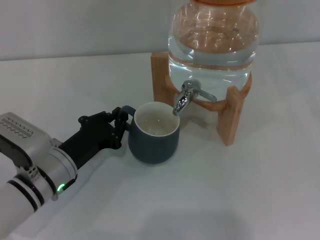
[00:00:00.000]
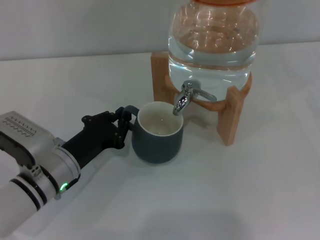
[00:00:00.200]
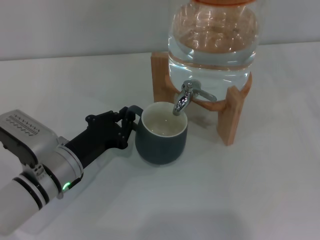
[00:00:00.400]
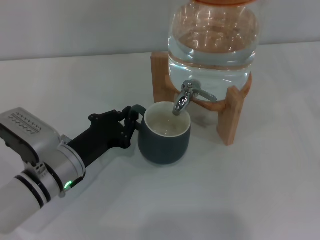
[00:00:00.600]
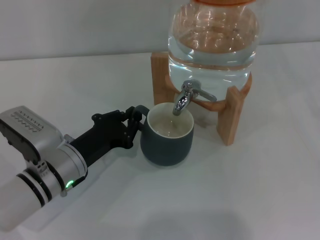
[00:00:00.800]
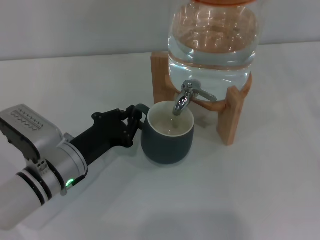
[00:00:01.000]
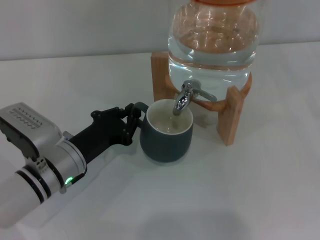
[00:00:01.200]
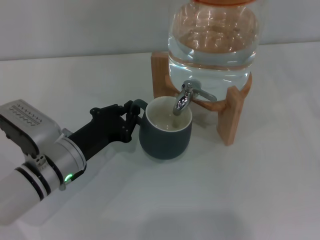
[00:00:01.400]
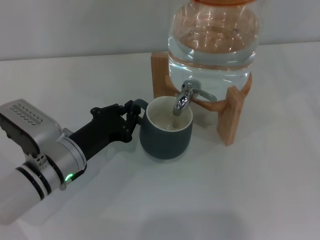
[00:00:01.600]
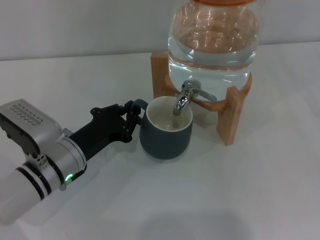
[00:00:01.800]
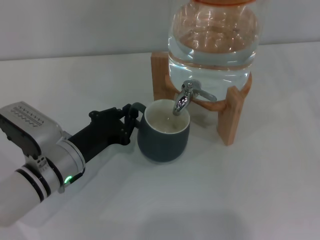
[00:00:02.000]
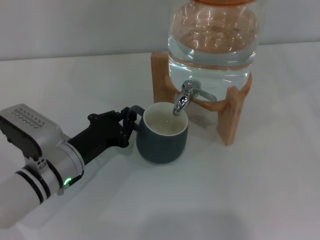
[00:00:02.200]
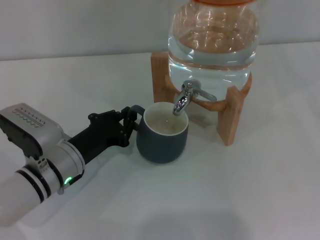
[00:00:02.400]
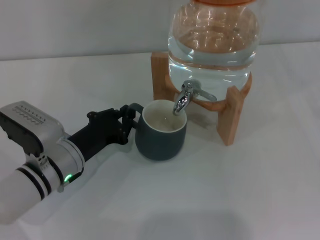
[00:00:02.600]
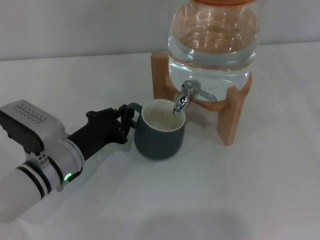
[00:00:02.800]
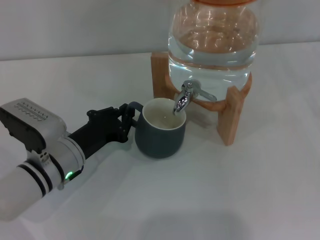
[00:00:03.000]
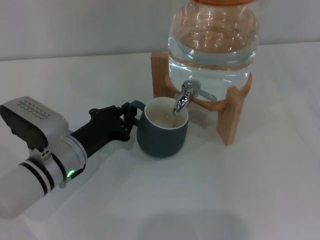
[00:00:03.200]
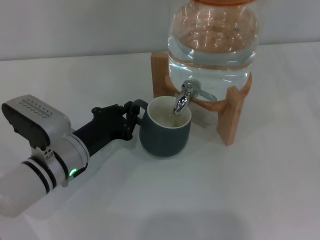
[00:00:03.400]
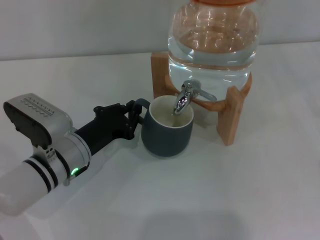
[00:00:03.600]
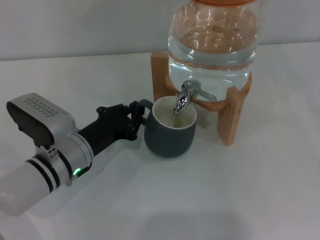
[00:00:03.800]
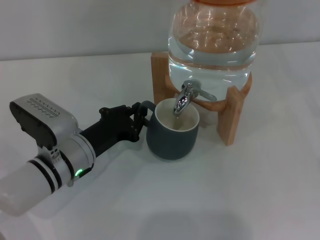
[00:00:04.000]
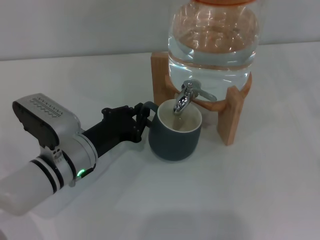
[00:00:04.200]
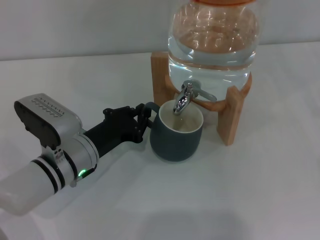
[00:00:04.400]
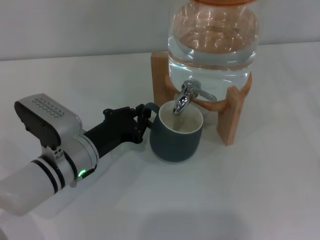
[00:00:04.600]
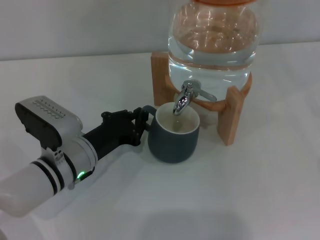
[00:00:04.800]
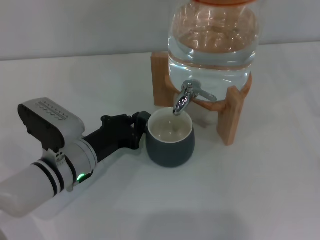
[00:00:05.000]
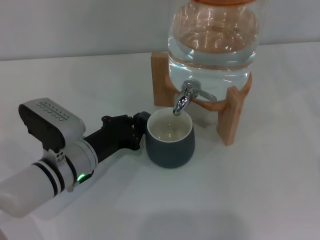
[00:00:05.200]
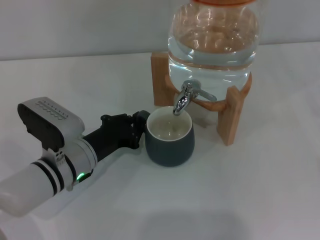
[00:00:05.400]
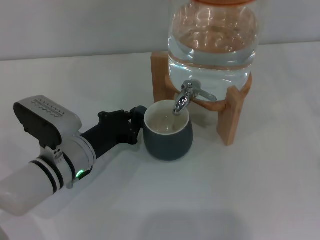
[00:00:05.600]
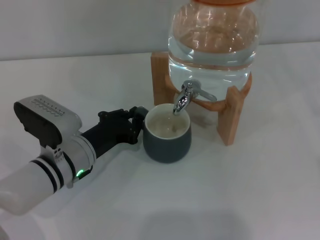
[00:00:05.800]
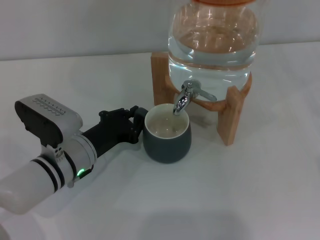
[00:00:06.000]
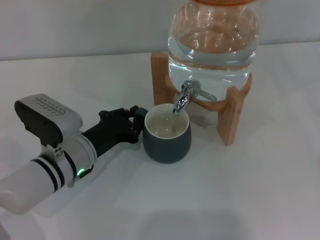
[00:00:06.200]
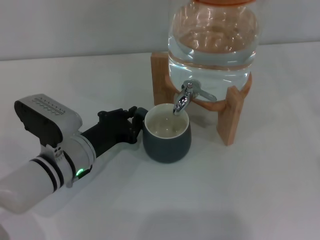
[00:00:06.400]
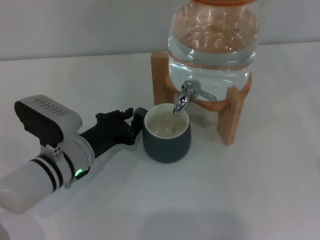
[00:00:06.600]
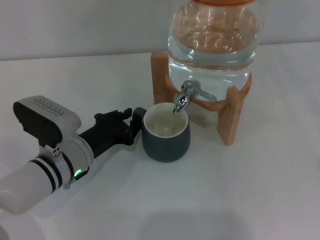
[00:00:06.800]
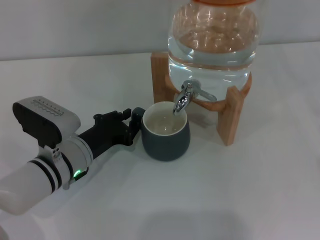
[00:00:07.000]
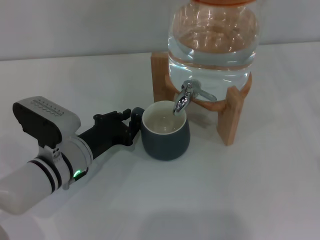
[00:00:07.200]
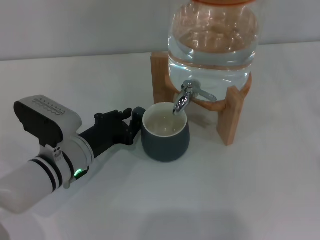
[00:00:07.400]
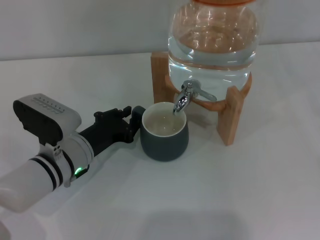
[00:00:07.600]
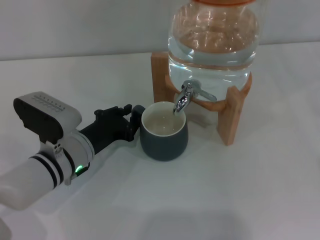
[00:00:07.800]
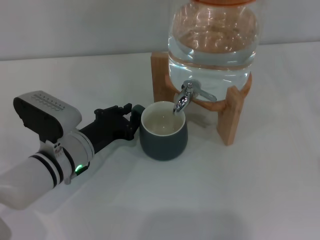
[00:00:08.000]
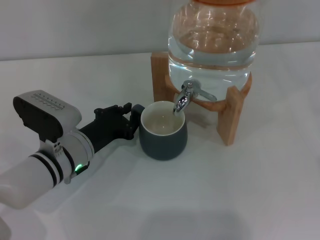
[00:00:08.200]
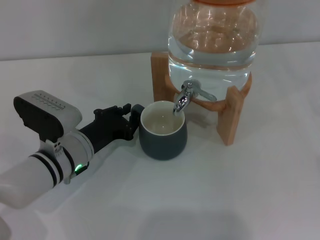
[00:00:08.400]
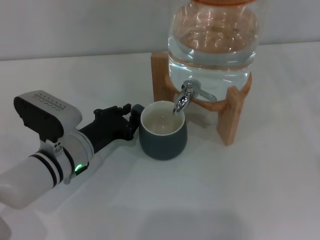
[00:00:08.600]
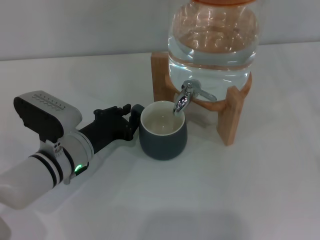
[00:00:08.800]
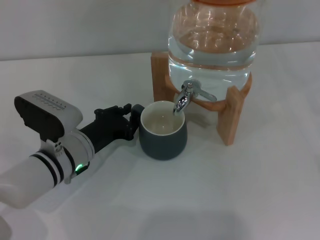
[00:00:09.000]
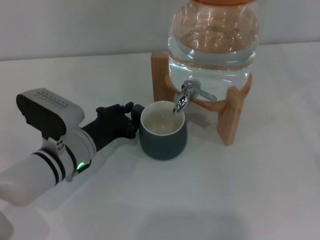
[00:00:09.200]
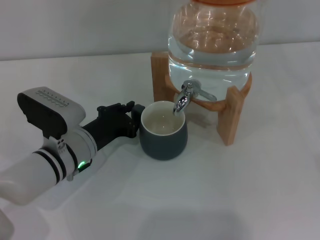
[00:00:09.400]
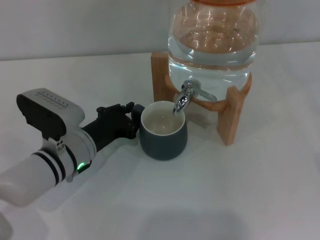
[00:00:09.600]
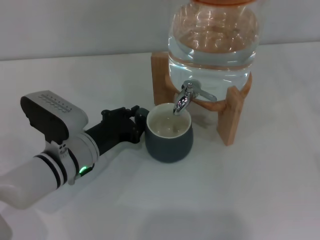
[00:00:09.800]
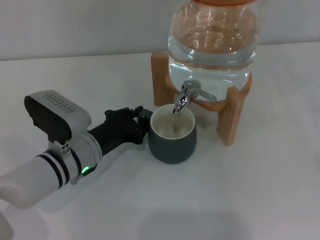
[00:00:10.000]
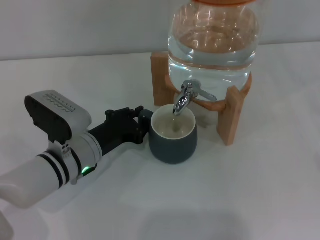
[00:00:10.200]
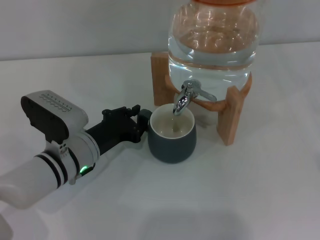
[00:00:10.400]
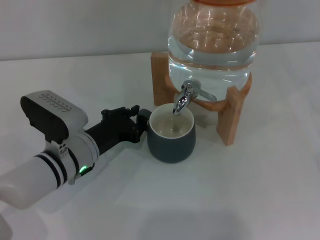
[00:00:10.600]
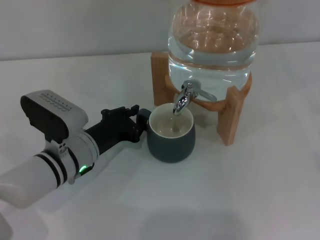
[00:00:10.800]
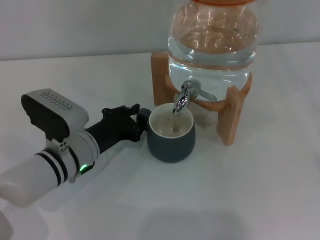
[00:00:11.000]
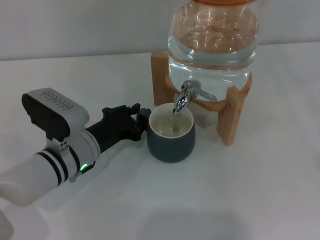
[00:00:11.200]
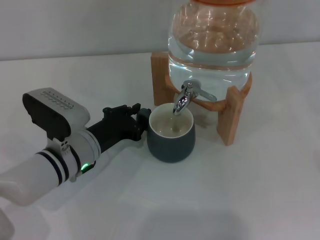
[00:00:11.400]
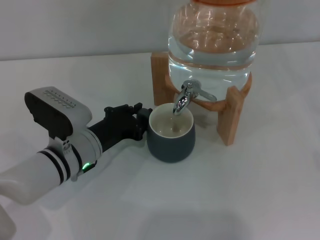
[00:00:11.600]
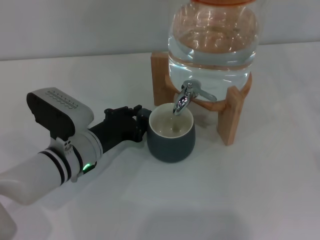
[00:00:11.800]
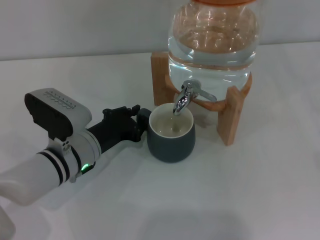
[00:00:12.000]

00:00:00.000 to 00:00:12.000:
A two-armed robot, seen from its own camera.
Task of the whole recording: the left gripper pick up the black cup and place it horizontally under the faucet, the right gripper turn on the faucet to fill the cup, and then turn off the faucet.
00:00:00.000 to 00:00:04.400: There are only small adjustments of the grippers.
00:00:04.400 to 00:00:06.000: Neither gripper changes place.
00:00:06.000 to 00:00:12.000: The two grippers keep their place.

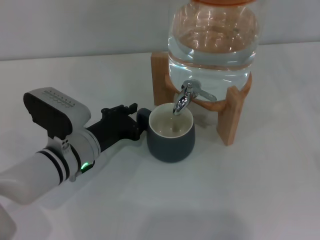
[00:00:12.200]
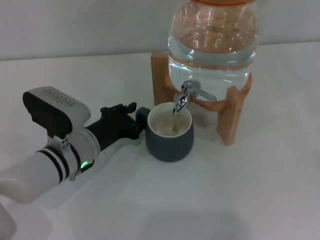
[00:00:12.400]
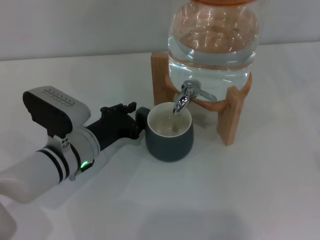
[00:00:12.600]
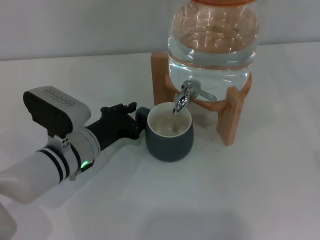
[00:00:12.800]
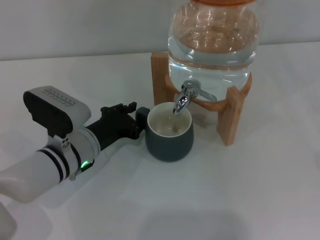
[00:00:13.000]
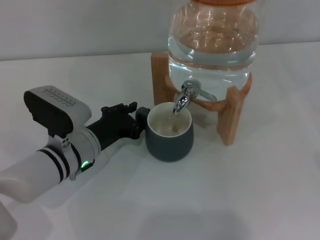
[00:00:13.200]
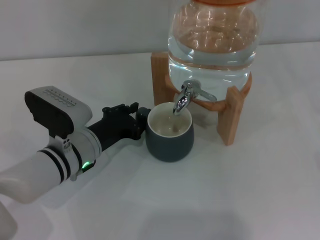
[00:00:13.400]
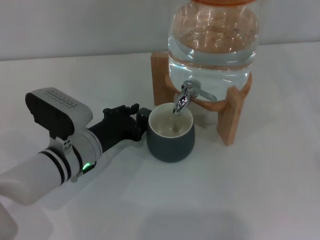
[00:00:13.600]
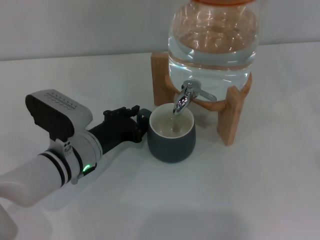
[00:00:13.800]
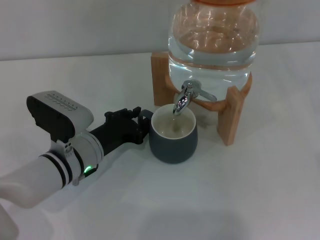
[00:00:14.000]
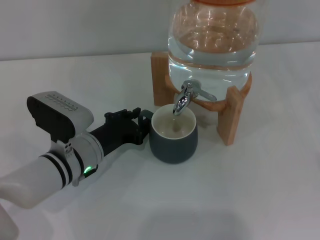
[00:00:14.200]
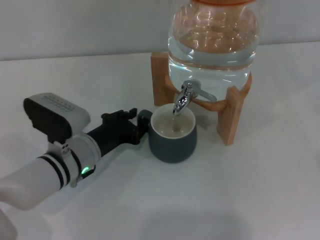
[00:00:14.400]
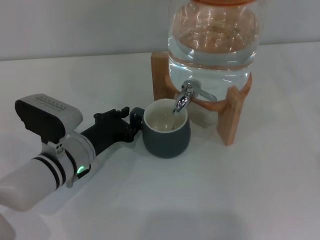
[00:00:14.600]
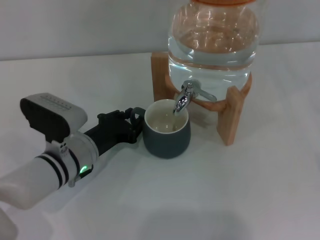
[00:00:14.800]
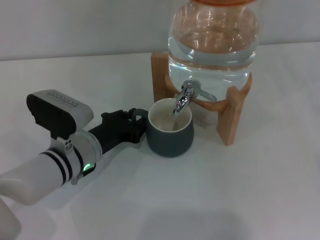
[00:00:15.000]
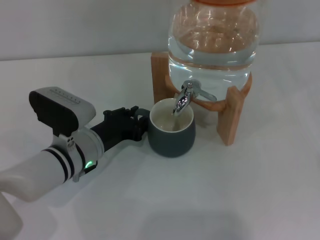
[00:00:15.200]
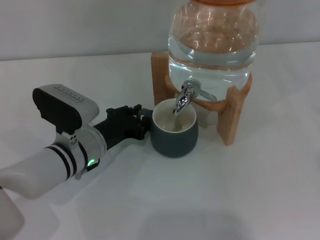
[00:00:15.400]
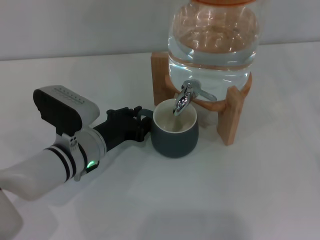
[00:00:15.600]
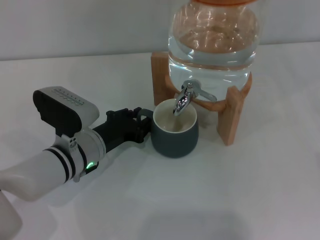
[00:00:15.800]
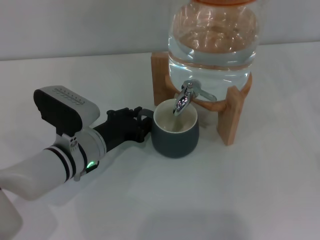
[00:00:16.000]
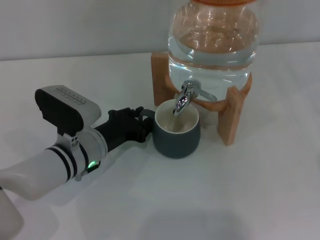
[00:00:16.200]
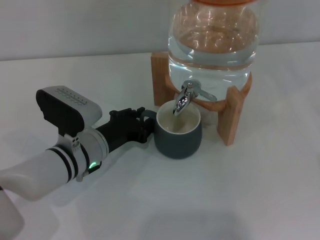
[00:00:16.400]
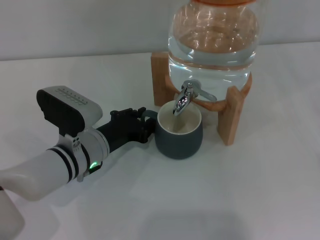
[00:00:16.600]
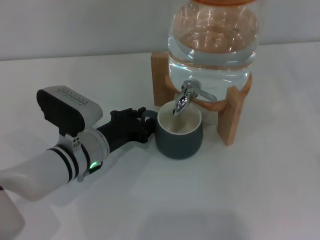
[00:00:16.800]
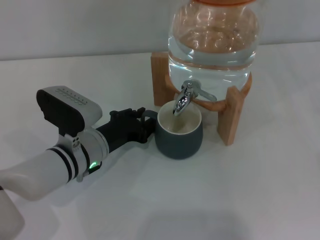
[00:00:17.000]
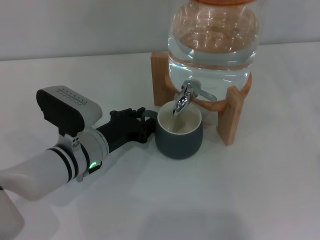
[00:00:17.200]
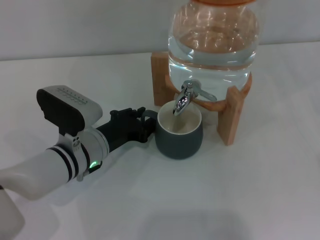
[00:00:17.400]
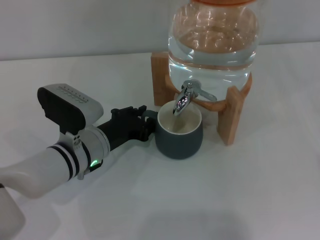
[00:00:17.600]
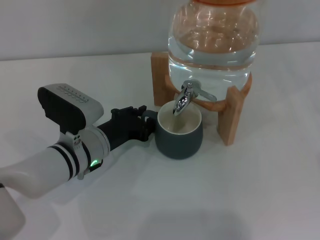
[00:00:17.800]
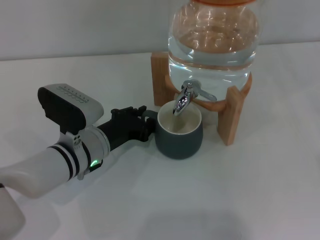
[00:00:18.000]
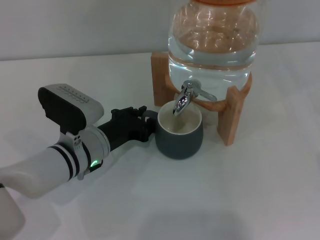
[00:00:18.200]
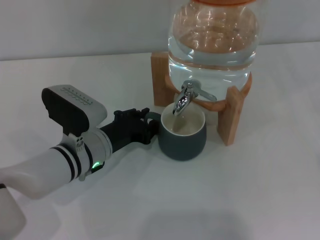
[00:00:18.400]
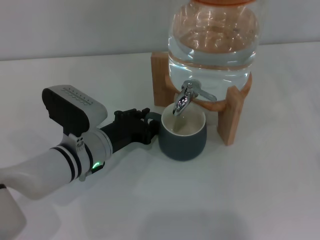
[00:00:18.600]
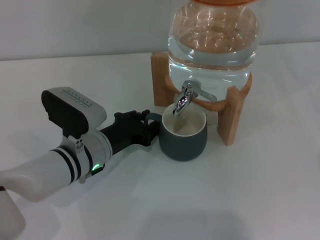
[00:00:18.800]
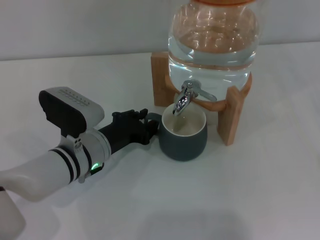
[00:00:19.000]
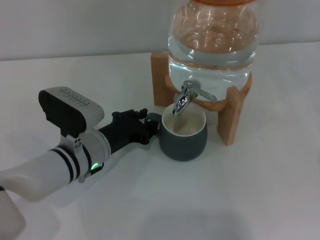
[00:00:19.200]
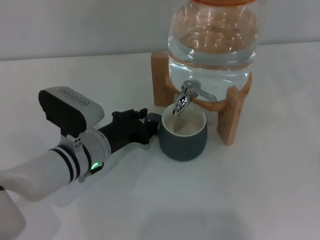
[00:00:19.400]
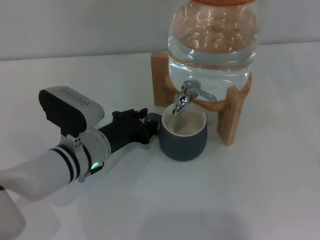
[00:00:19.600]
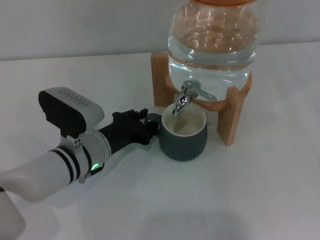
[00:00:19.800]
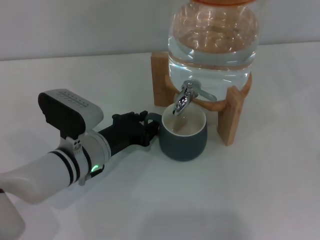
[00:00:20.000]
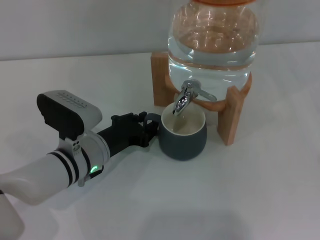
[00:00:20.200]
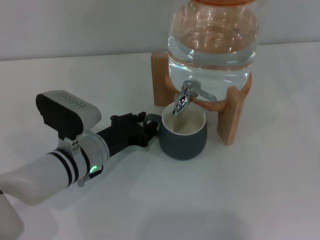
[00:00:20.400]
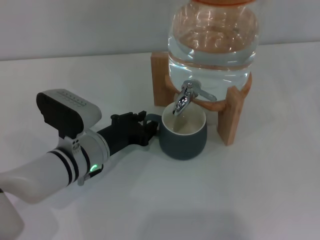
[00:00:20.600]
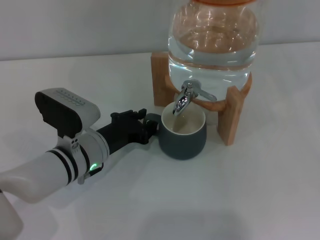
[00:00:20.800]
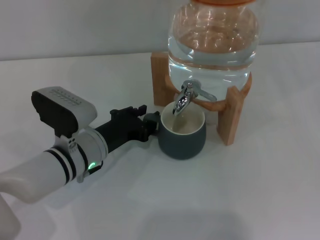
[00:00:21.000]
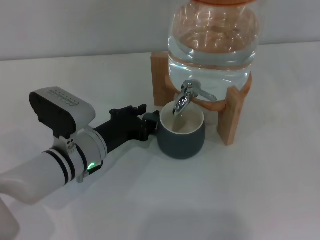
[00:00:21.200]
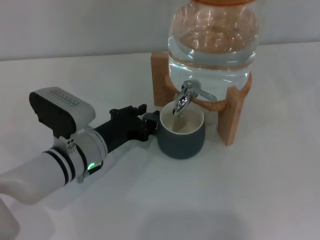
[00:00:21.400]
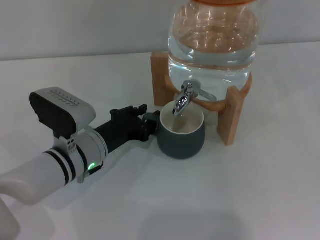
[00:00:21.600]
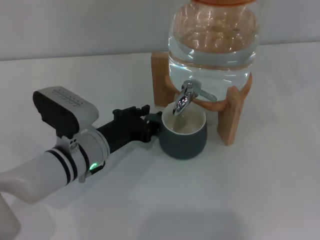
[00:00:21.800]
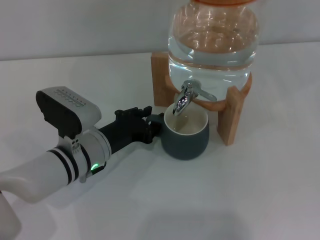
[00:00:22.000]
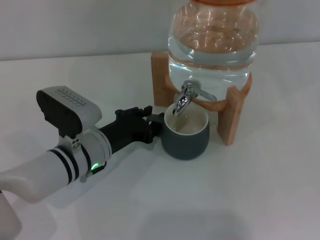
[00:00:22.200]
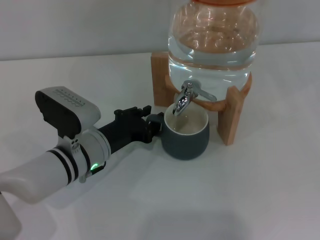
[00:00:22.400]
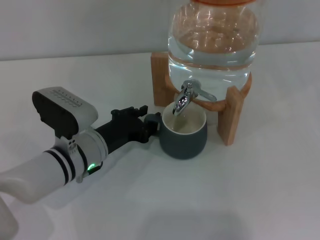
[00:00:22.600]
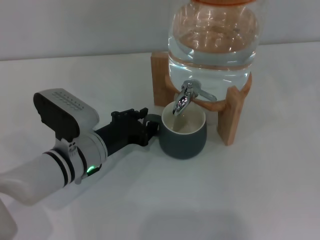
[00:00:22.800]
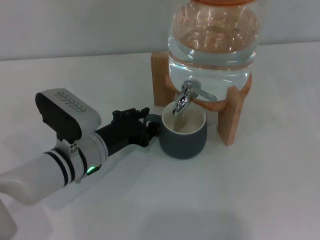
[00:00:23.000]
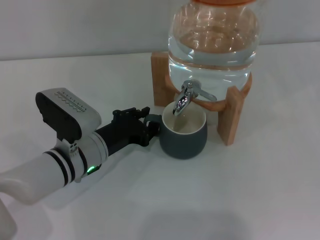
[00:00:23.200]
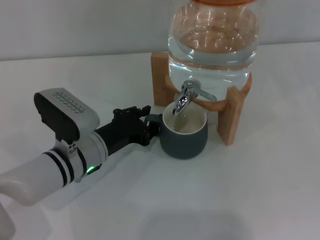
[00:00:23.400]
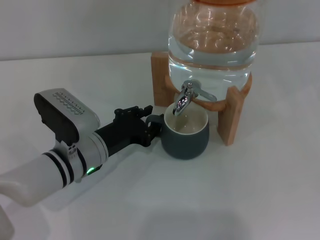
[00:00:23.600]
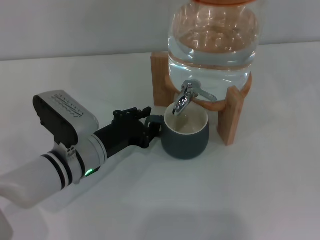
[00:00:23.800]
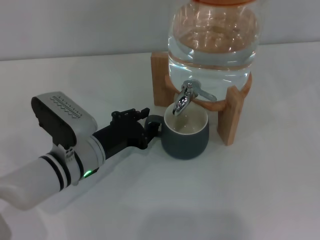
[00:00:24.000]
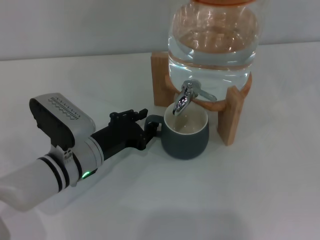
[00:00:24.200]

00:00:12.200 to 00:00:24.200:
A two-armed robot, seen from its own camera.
Task of the whole recording: the left gripper pick up the black cup and place it horizontally under the faucet, the right gripper turn on the faucet to fill the cup, and then turn off the faucet.
00:00:12.200 to 00:00:13.800: Neither gripper changes place.
00:00:13.800 to 00:00:15.200: The grippers move only a little.
00:00:15.200 to 00:00:21.200: Both grippers stay put.
00:00:21.200 to 00:00:22.600: Both grippers stay put.
00:00:22.600 to 00:00:24.200: There are only small adjustments of the grippers.
